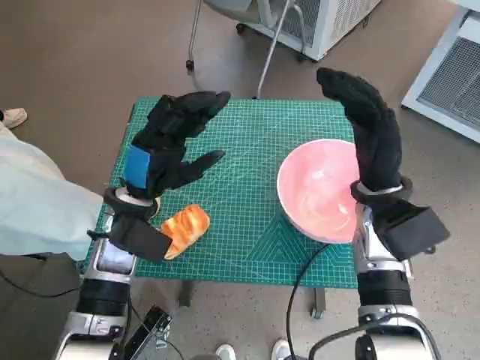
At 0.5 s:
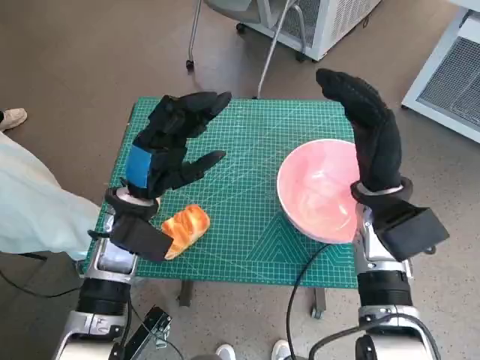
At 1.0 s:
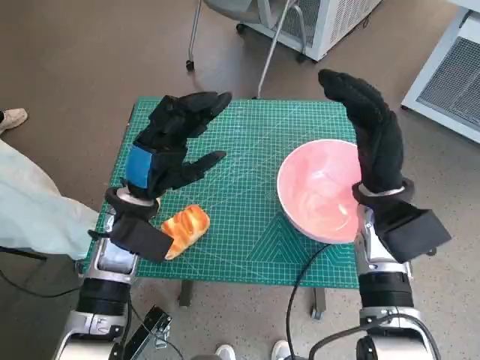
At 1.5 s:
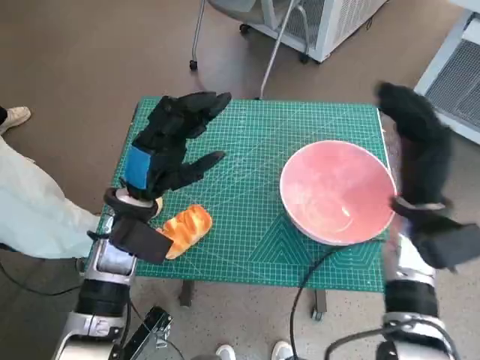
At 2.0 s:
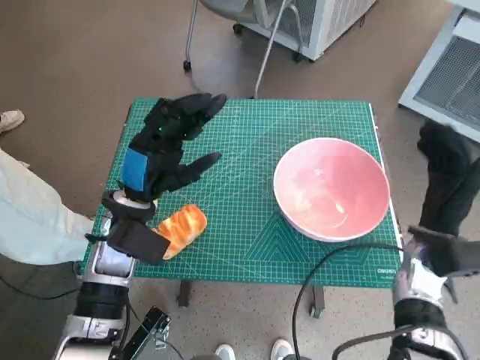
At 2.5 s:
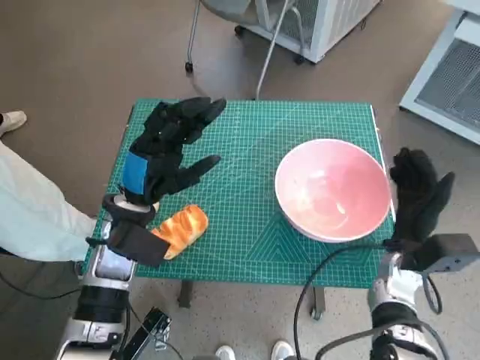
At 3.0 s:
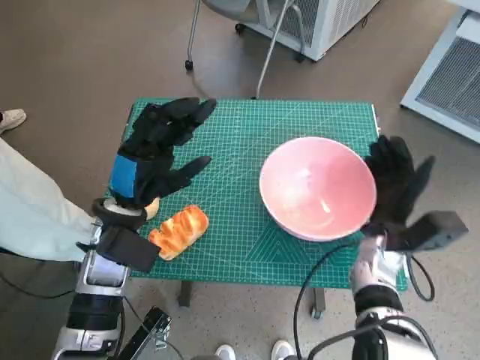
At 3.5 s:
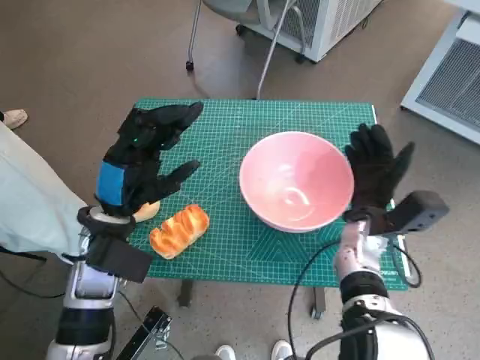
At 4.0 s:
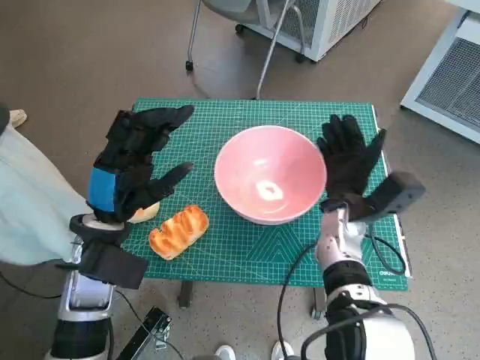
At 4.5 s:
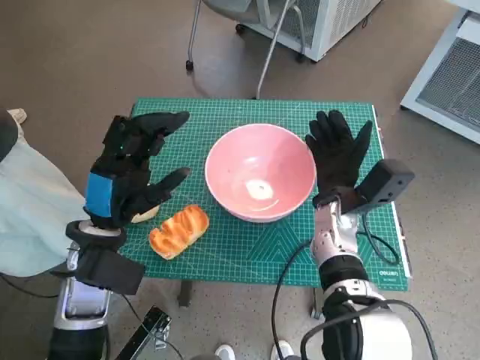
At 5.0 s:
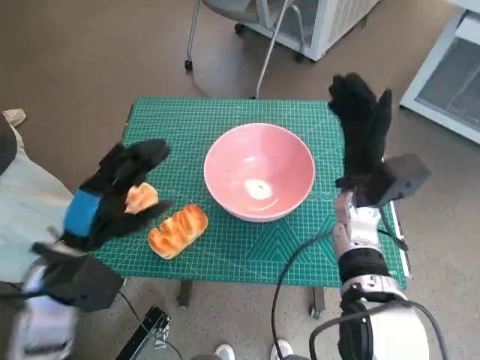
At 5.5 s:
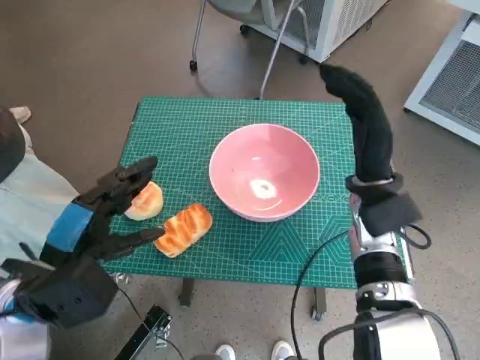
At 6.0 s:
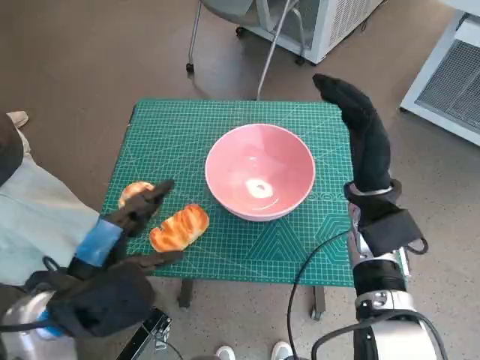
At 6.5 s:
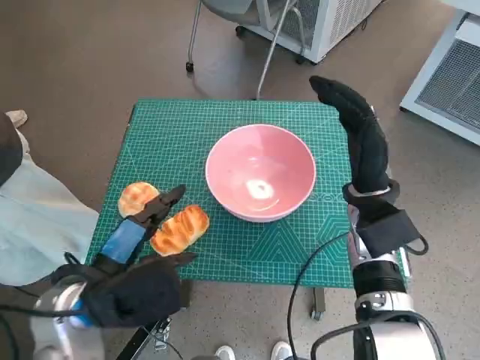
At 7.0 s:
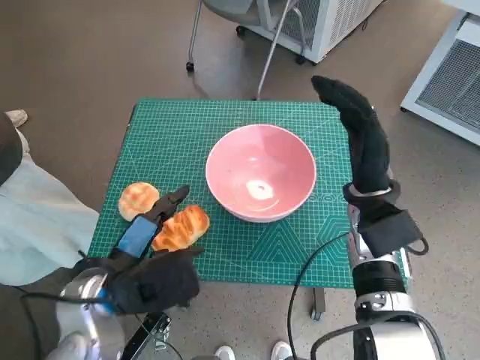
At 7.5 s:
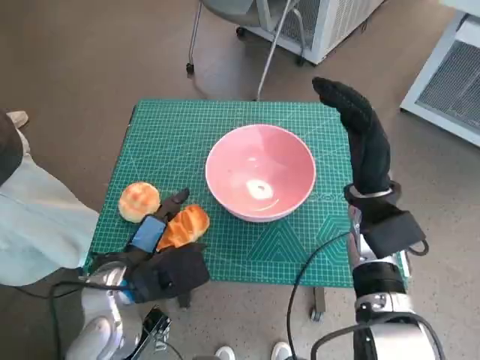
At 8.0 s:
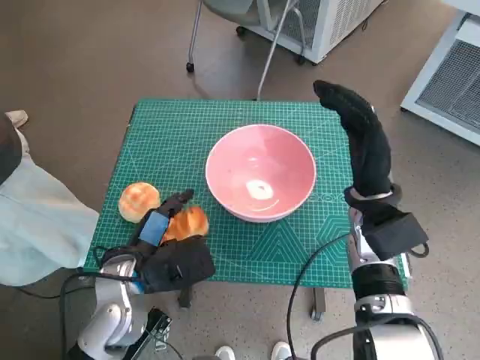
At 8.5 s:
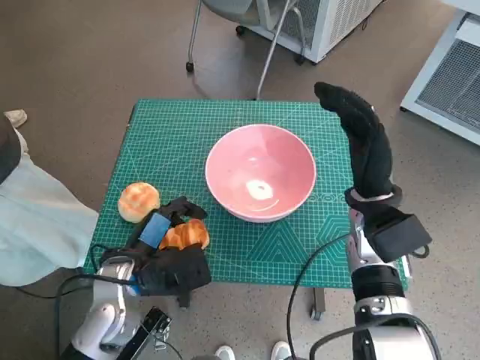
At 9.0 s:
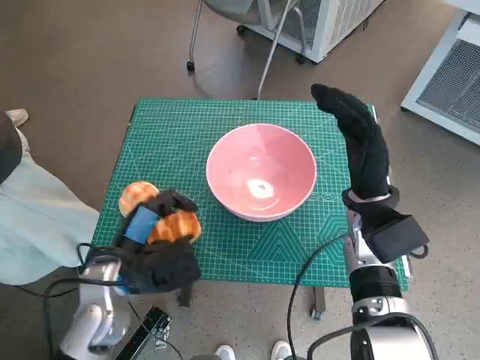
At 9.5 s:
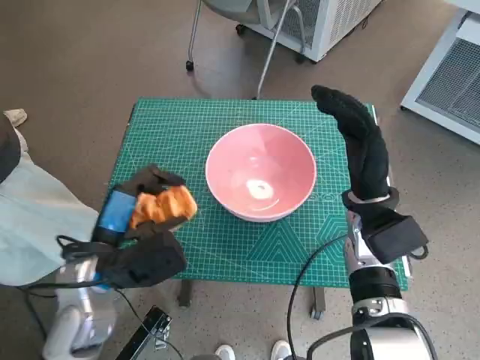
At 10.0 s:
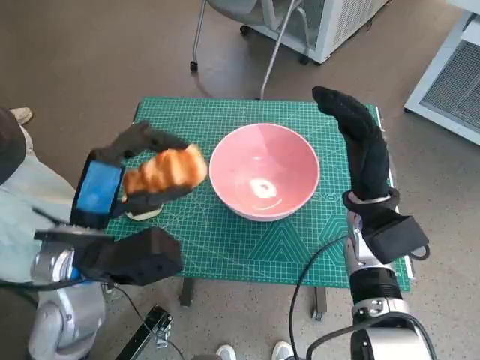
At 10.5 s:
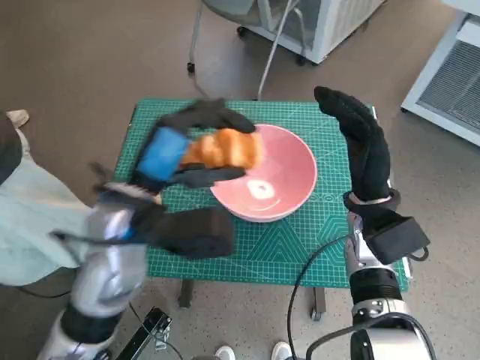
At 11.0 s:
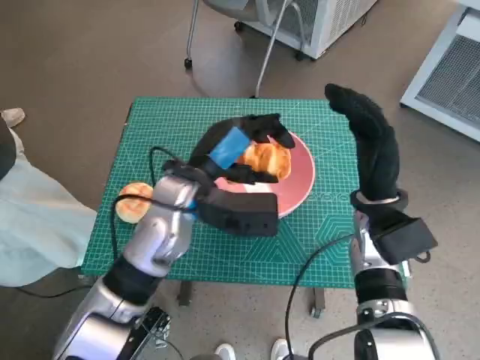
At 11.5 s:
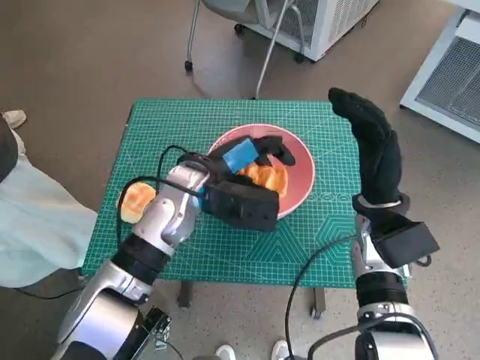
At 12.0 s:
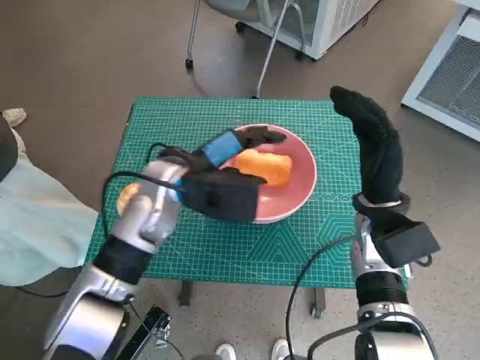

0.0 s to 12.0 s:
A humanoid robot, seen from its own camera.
Task of the whole recording: Push the bowl to the center of the table and put the bread into the bowl.
Step, 0.0 to 4.5 s: Move the pink bowl to the center of table with right hand.
Step, 5.0 to 8.0 s: Grasp the long bread with left hand.
Step, 8.5 to 12.0 s: Place the long bread in pink bowl with left hand.
2.0 to 4.0 s: The right hand heads to the left, covering approximately 10 cm.
4.0 to 6.0 s: The left hand travels backward by some 10 cm; the right hand goes some 5 cm upward.
6.0 to 8.0 s: The left hand goes roughly 10 cm downward and forward.
8.0 to 10.0 s: The left hand goes some 10 cm upward.
10.0 to 12.0 s: The left hand travels forward and to the right by about 15 cm.

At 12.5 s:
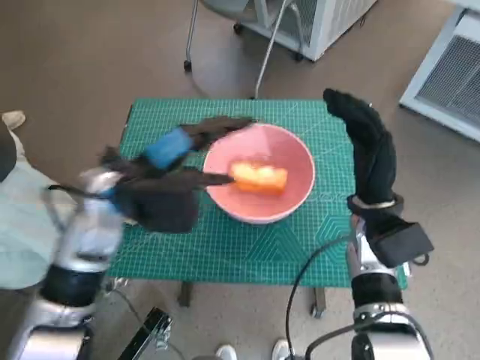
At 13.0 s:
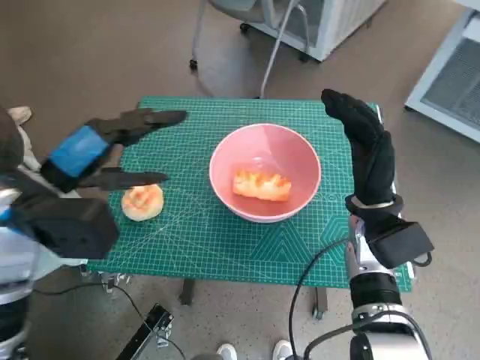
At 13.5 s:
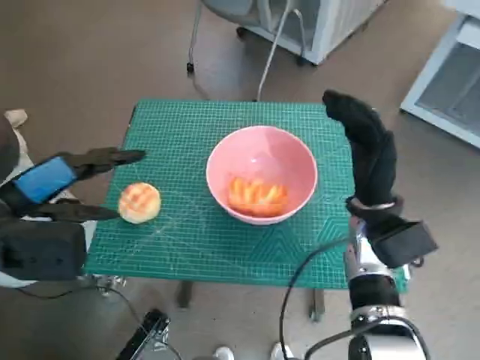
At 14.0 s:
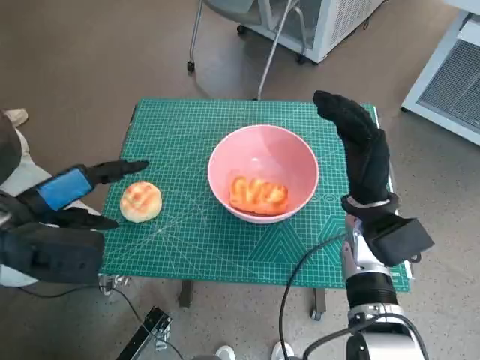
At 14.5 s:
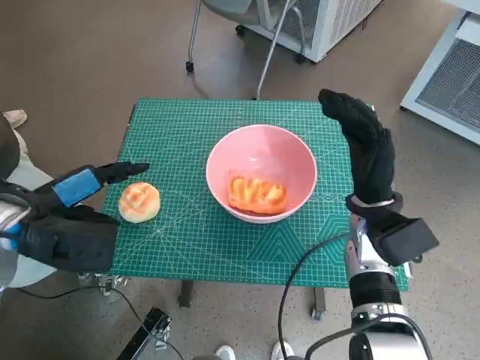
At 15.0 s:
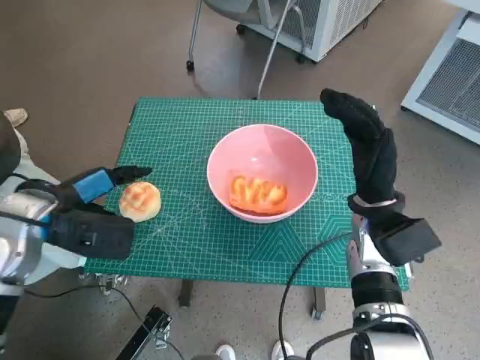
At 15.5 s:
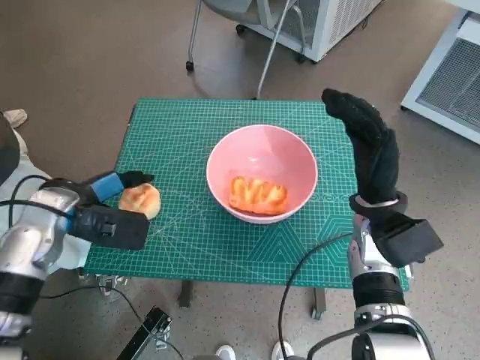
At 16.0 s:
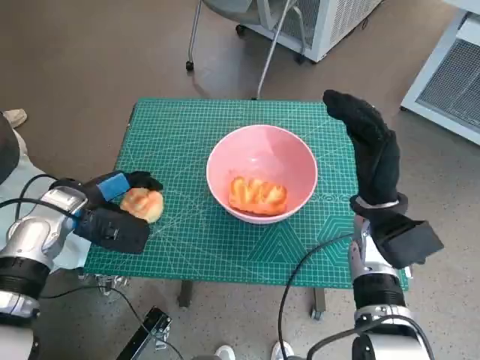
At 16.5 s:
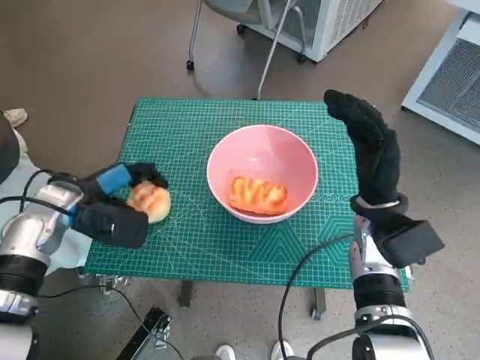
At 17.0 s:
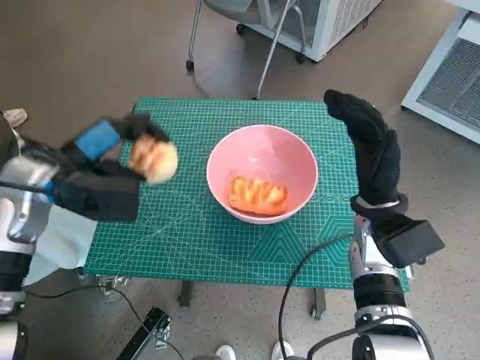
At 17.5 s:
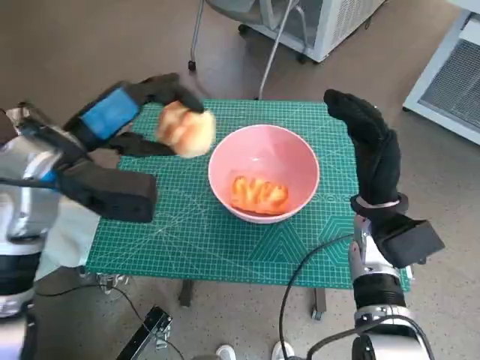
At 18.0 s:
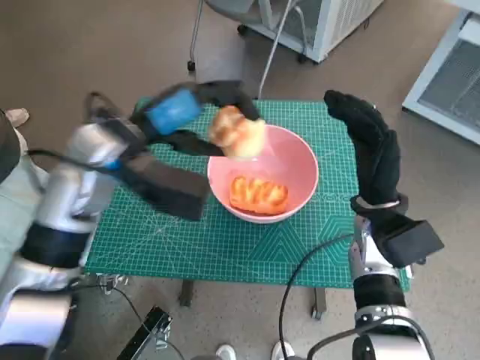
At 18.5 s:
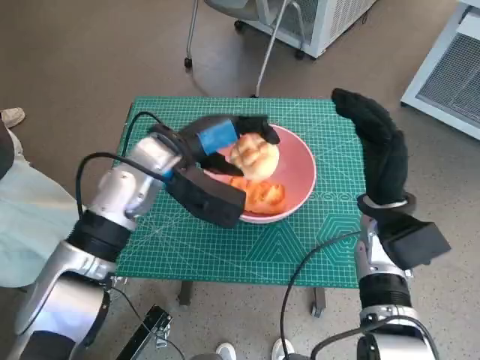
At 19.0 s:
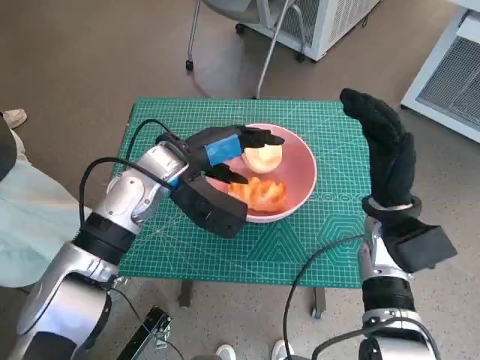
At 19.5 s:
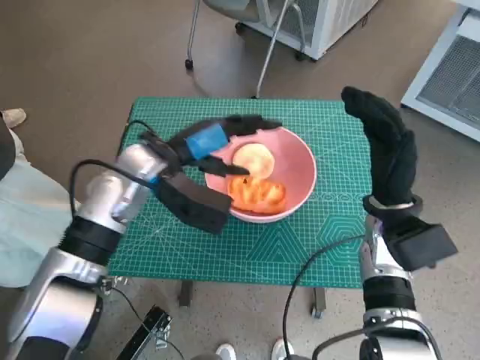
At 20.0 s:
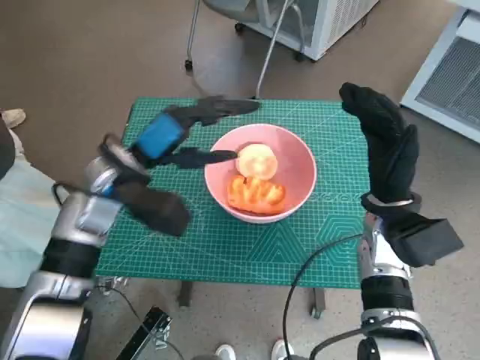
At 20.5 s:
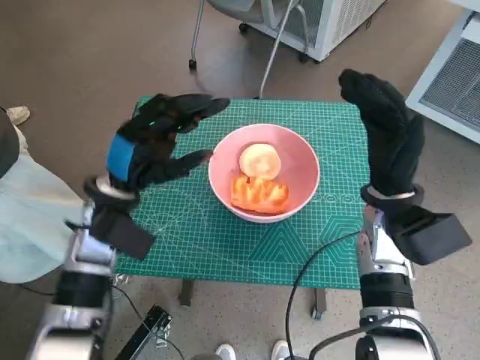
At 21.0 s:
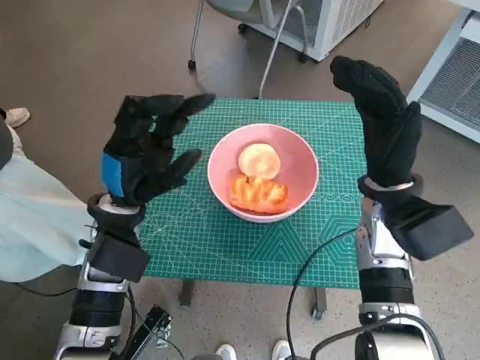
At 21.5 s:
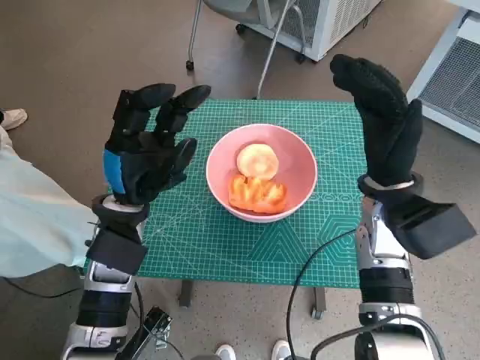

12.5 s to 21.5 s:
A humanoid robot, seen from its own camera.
Task of the whole recording: Push the bowl to the center of the table and put the bread into the bowl.
Step, 12.5 to 15.5 s: Grasp the round bread with left hand.
Step, 16.5 to 19.5 s: Place the round bread in pink bowl with left hand.
12.5 to 14.5 s: The left hand shifts roughly 10 cm to the left and backward.
14.5 to 17.0 s: The left hand moves forward, approximately 5 cm, and travels downward and back again, some 10 cm each way.
17.0 to 19.5 s: The left hand travels to the right by some 10 cm.
19.5 to 21.5 s: The left hand goes approximately 5 cm backward.

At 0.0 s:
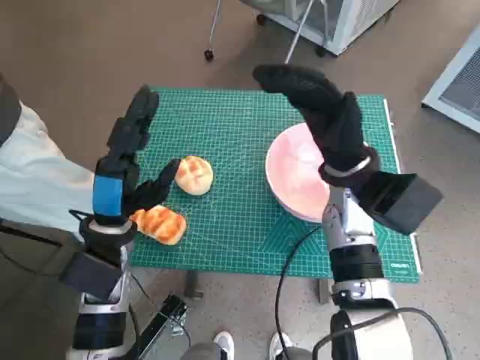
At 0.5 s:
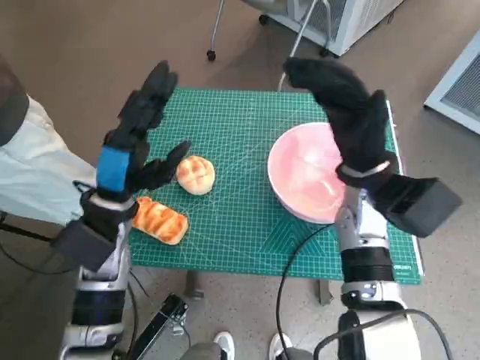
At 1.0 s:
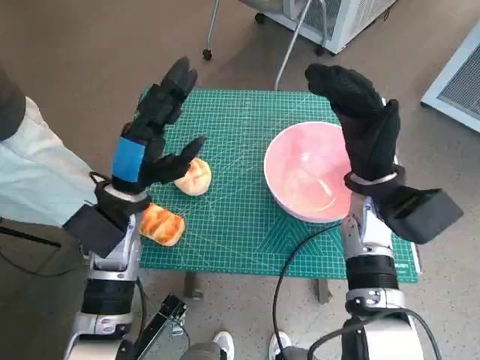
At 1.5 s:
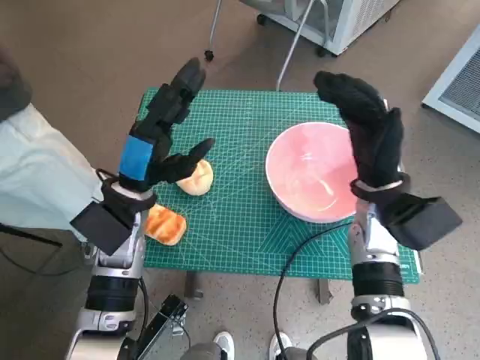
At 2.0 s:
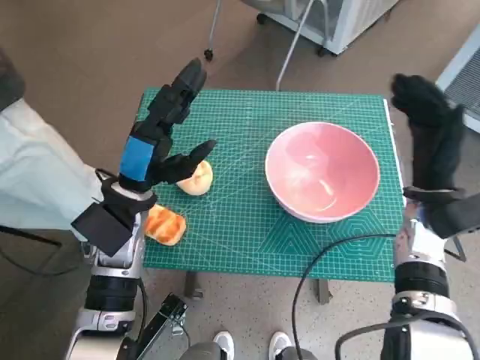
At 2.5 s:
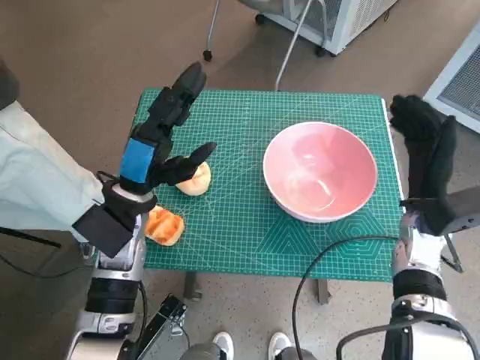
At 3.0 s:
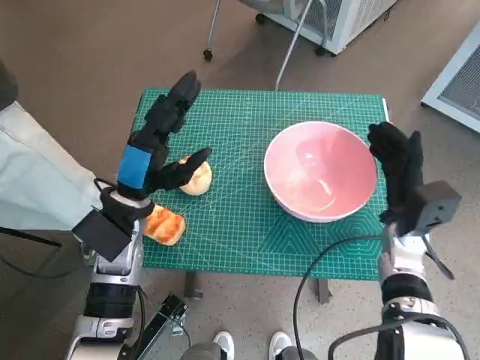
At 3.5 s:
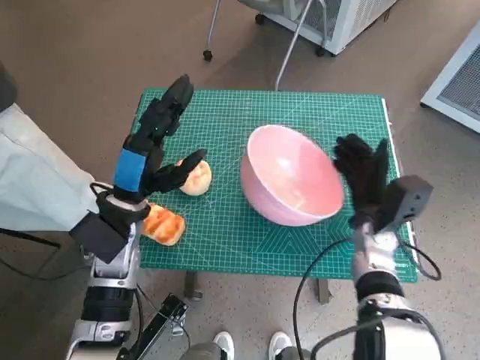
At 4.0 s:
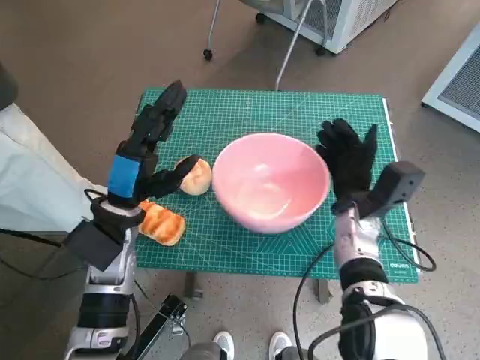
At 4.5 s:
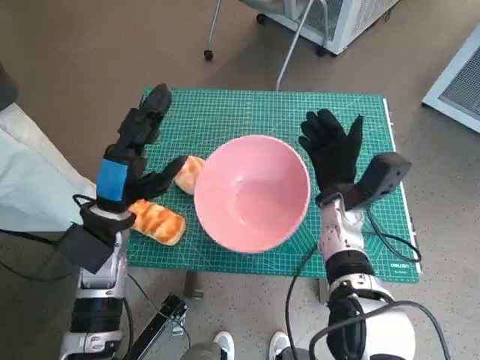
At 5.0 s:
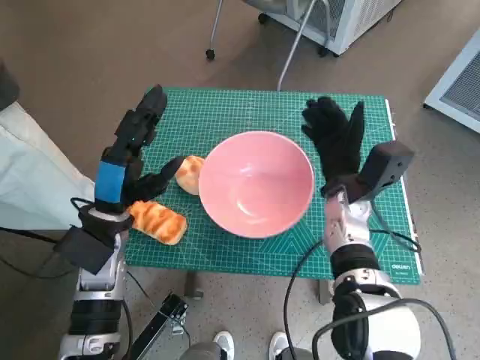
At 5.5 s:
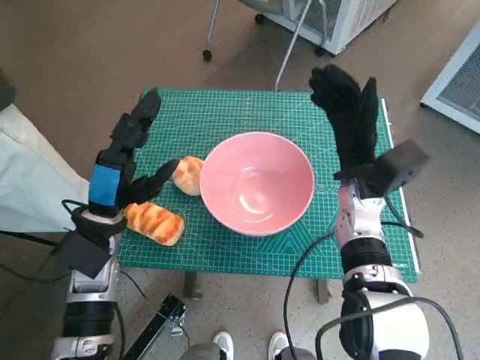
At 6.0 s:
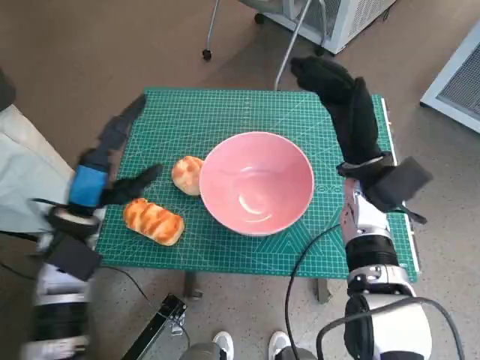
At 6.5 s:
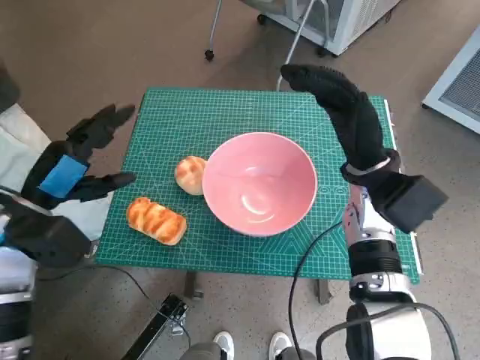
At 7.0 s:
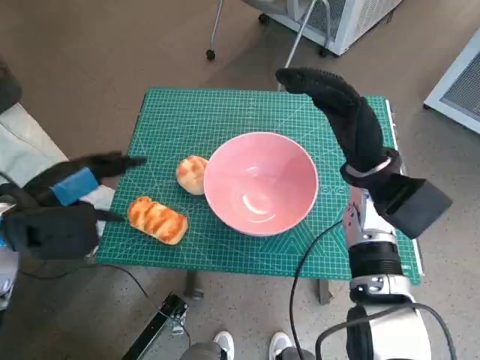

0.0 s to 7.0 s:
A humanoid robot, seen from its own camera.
Task of the whole recording: Push the bowl to the center of the table and put the bread into the bowl.
Step, 0.0 to 4.5 s: Move the pink bowl to the center of table with right hand.
2.0 to 3.5 s: The right hand moves downward, roughly 10 cm.
3.5 to 5.0 s: The right hand travels to the left by roughly 5 cm.
5.0 to 7.0 s: The right hand moves upward, some 10 cm, while the left hand goes about 10 cm to the left and upward.
